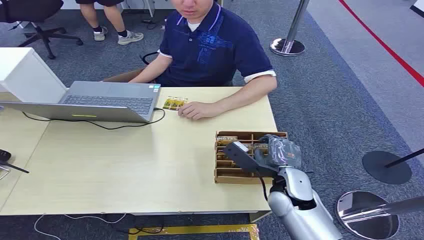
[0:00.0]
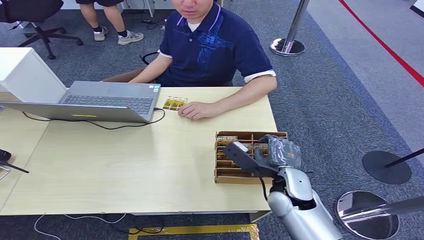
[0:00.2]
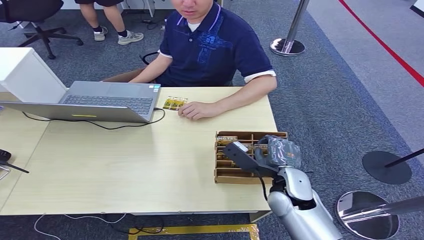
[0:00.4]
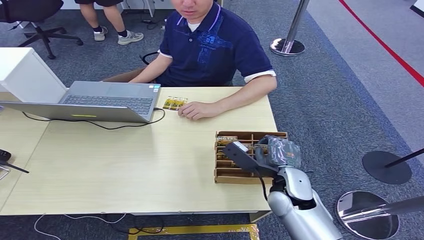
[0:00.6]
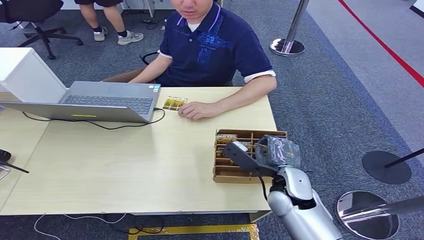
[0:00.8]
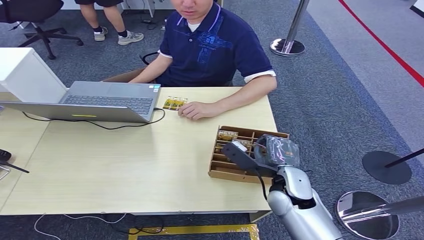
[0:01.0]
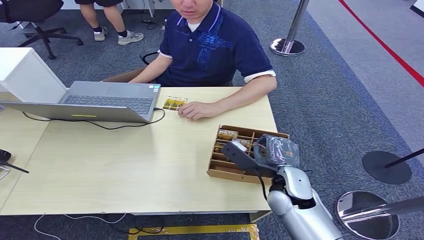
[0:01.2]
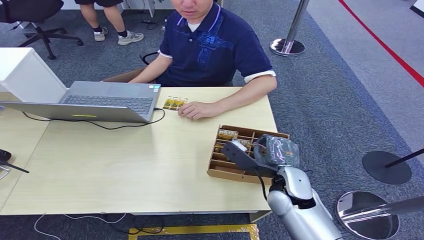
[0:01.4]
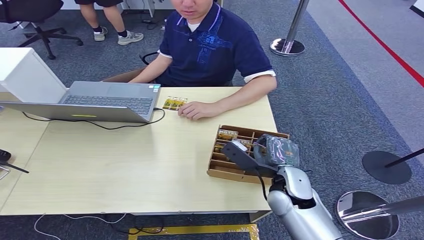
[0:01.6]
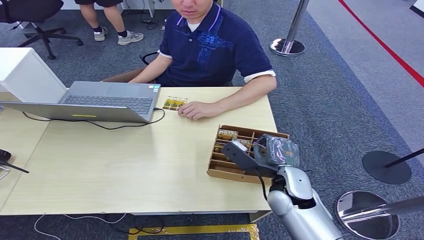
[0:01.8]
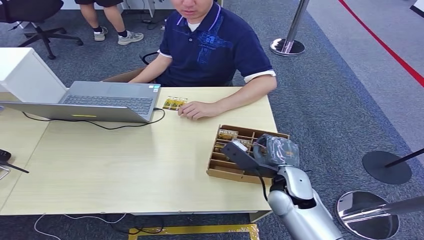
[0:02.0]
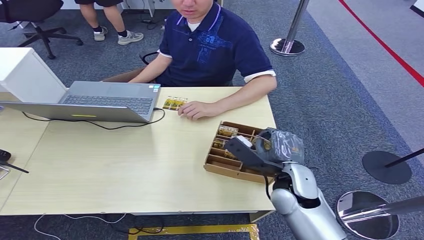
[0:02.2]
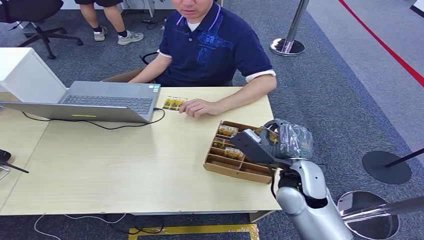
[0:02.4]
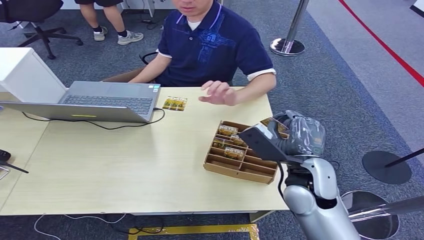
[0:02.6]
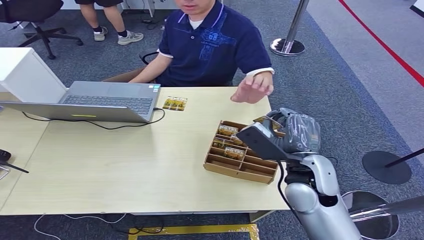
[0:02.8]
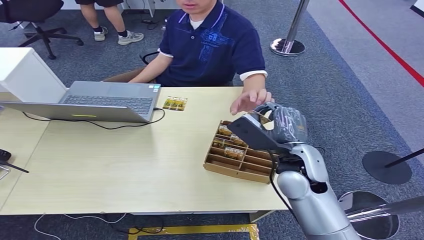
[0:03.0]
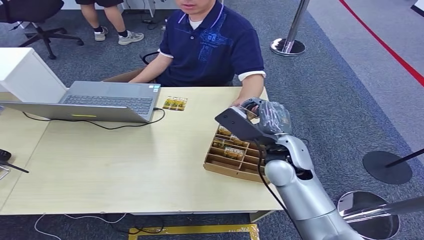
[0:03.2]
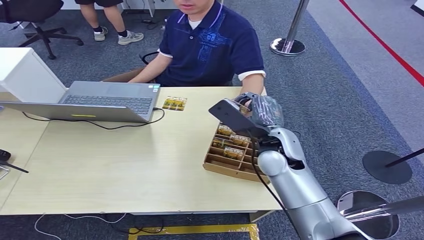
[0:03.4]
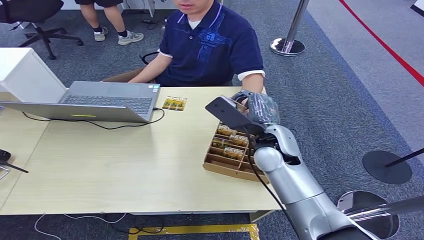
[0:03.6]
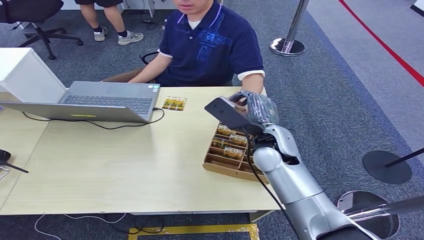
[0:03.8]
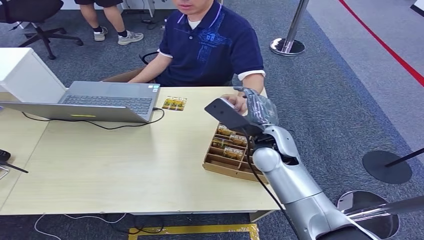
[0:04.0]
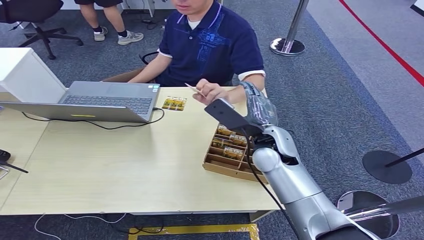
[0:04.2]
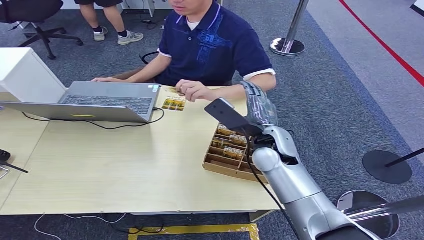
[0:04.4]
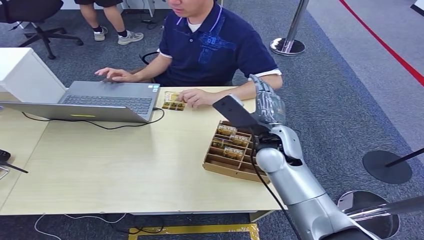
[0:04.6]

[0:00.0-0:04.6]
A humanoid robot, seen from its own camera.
Step, 0:00.0 to 0:02.4: Pick up the key card from the card box.
Step, 0:02.6 to 0:04.6: Hand the key card to the target.
0:01.6 to 0:03.0: The right hand heads upward, covering roughly 5 cm.
0:03.0 to 0:04.6: The right hand moves forward, some 5 cm.
